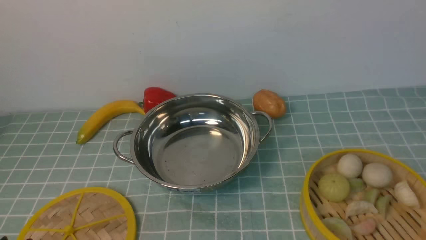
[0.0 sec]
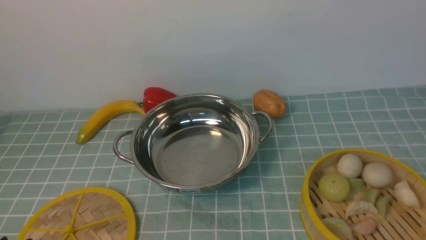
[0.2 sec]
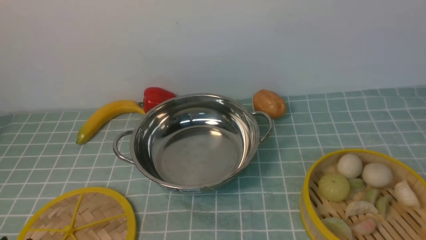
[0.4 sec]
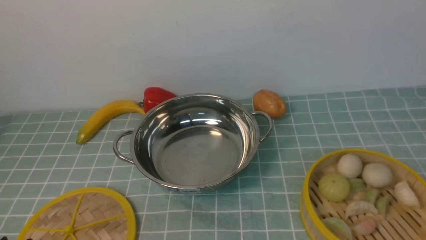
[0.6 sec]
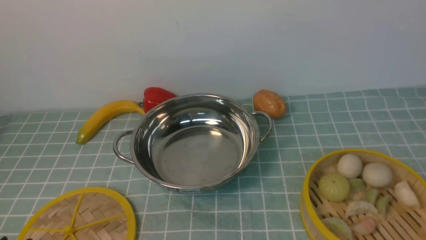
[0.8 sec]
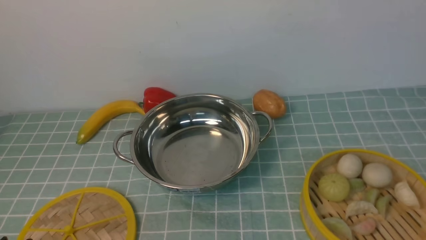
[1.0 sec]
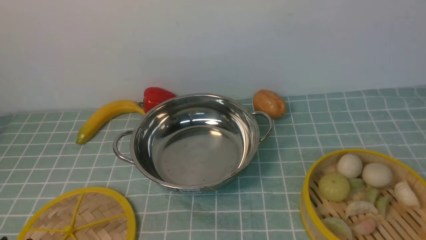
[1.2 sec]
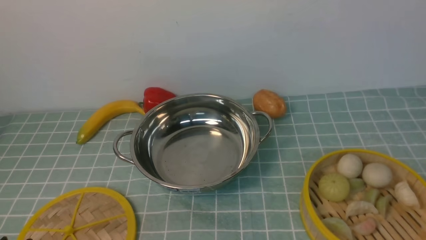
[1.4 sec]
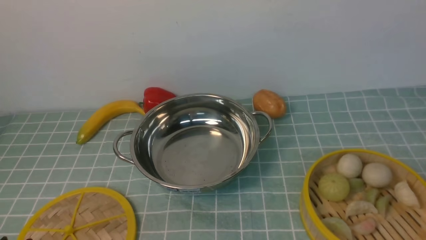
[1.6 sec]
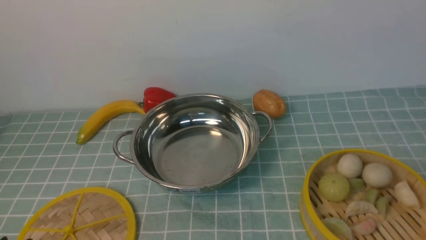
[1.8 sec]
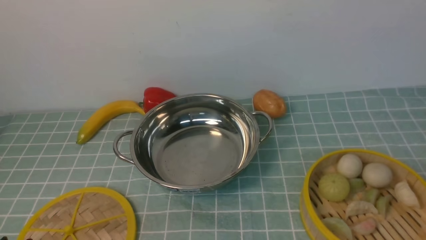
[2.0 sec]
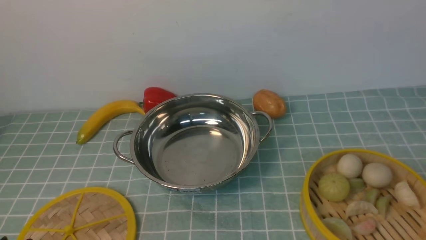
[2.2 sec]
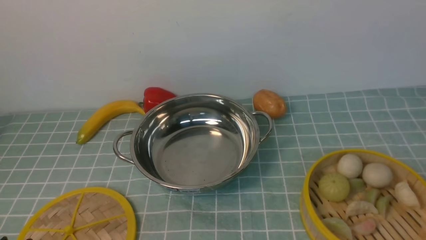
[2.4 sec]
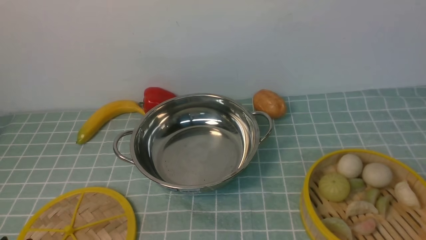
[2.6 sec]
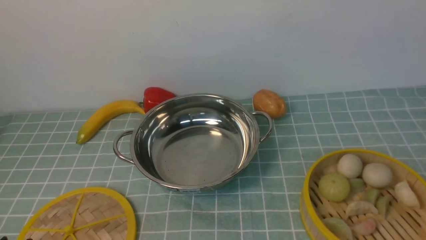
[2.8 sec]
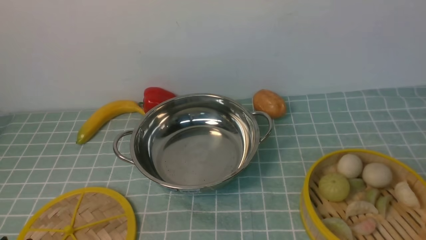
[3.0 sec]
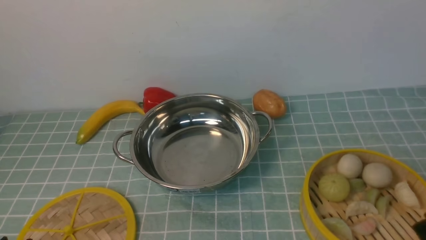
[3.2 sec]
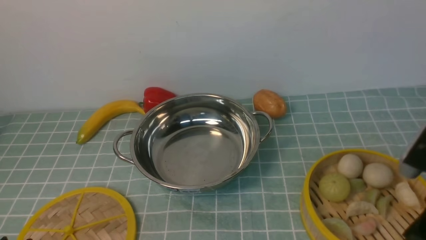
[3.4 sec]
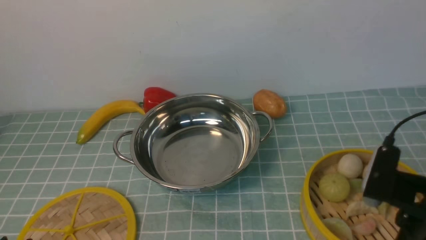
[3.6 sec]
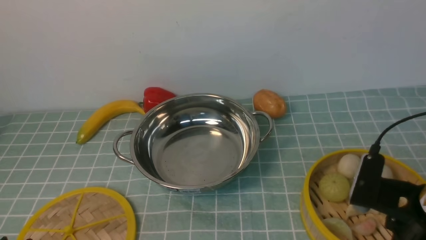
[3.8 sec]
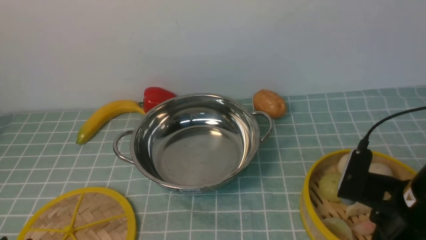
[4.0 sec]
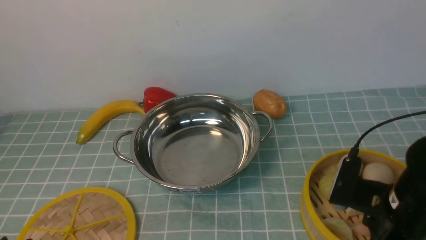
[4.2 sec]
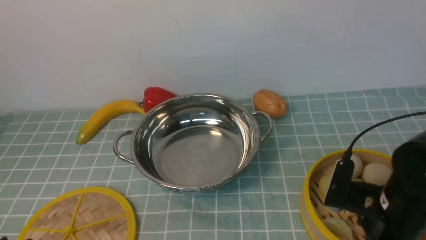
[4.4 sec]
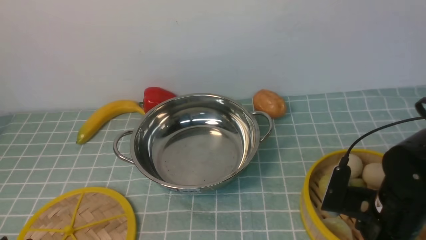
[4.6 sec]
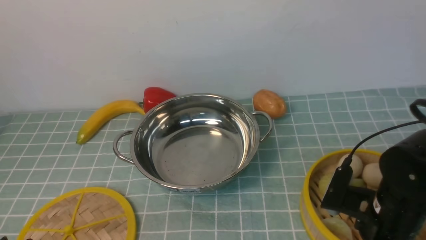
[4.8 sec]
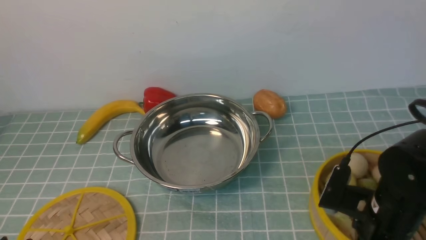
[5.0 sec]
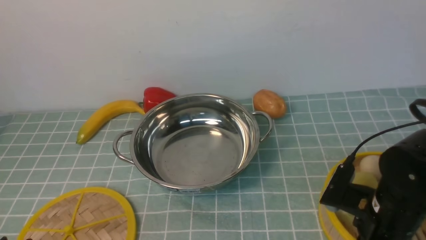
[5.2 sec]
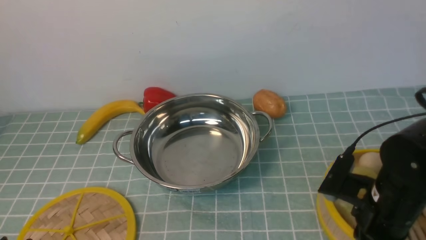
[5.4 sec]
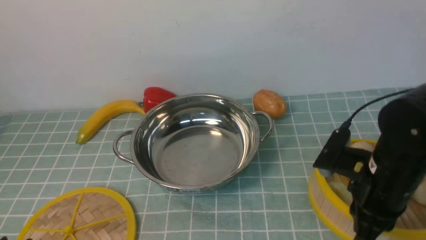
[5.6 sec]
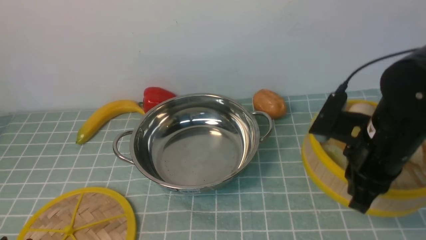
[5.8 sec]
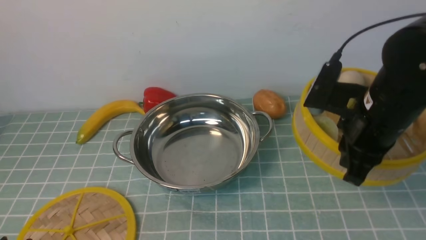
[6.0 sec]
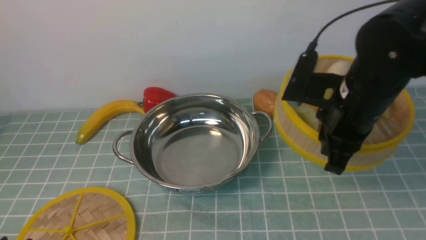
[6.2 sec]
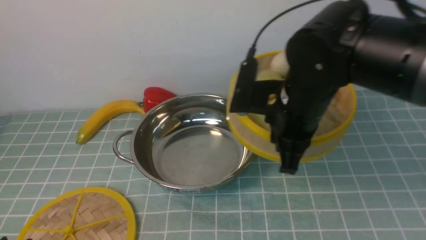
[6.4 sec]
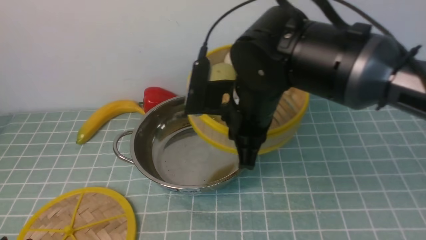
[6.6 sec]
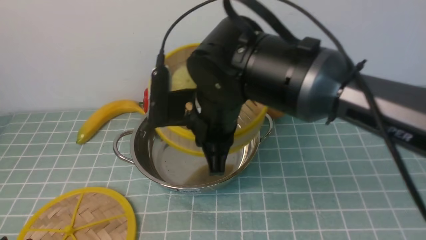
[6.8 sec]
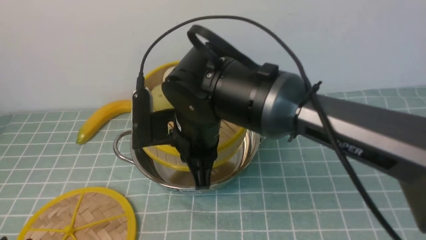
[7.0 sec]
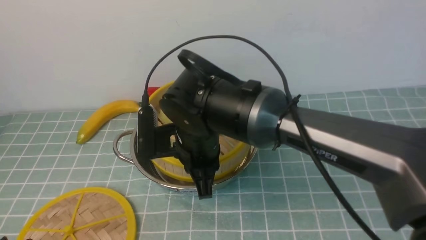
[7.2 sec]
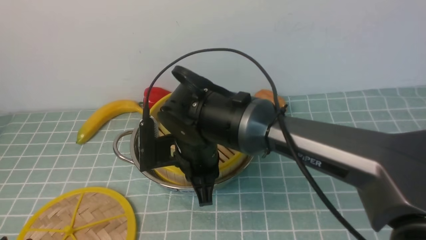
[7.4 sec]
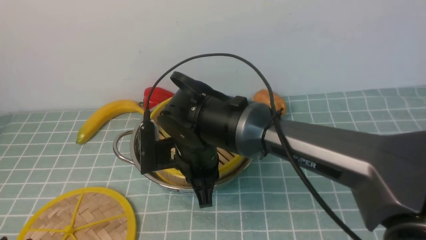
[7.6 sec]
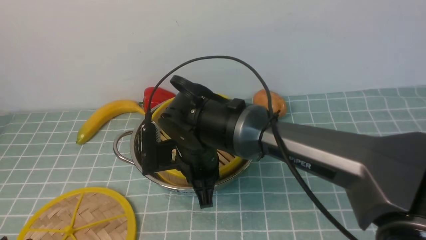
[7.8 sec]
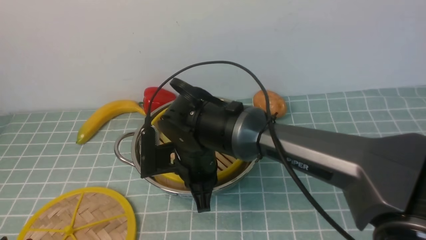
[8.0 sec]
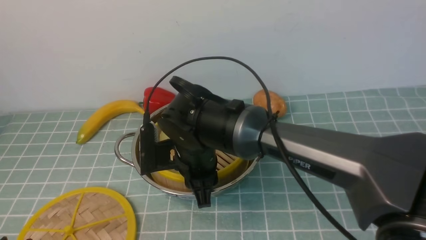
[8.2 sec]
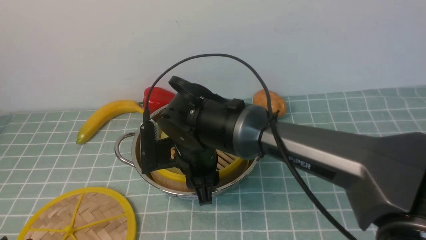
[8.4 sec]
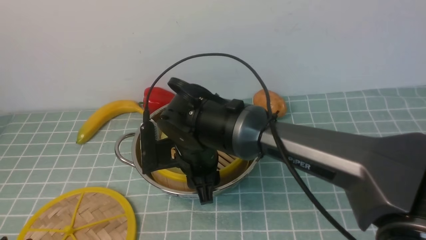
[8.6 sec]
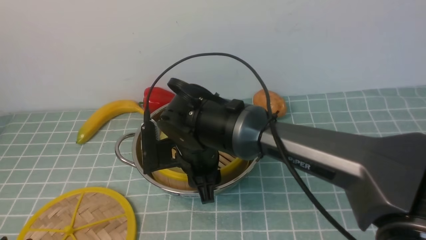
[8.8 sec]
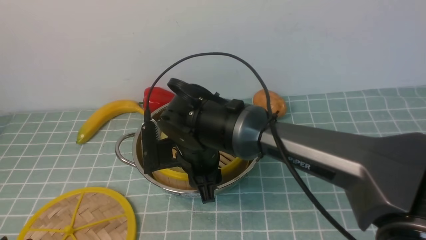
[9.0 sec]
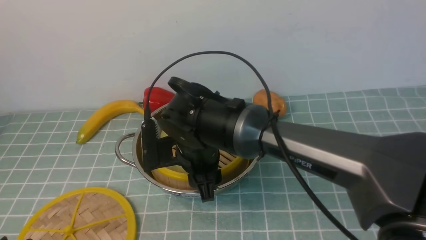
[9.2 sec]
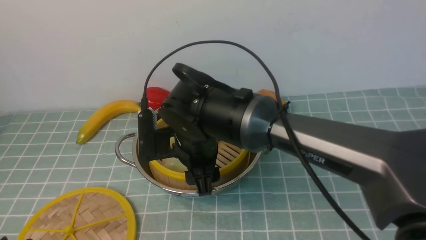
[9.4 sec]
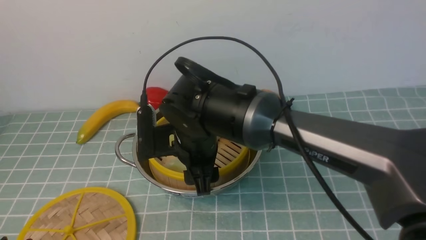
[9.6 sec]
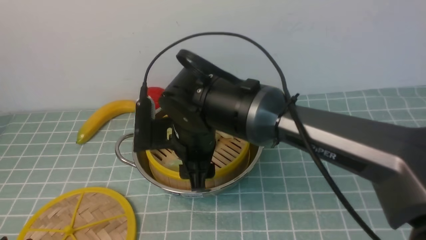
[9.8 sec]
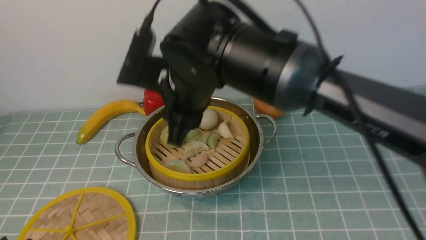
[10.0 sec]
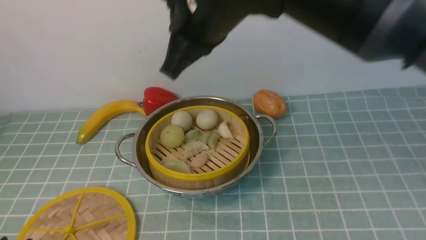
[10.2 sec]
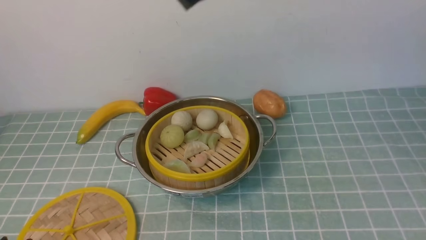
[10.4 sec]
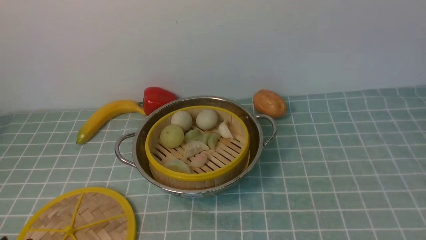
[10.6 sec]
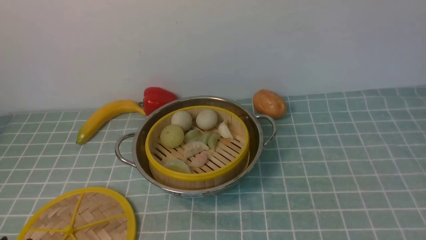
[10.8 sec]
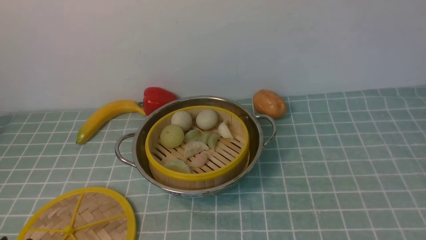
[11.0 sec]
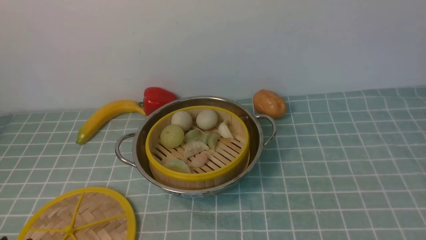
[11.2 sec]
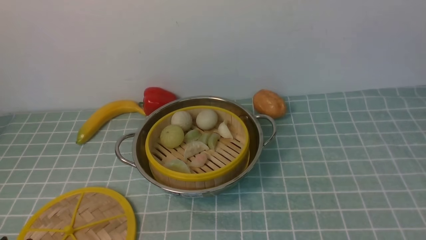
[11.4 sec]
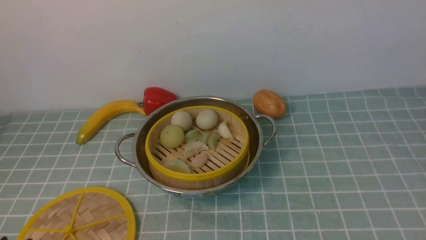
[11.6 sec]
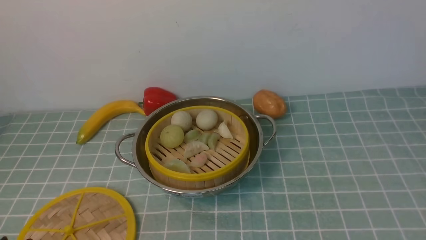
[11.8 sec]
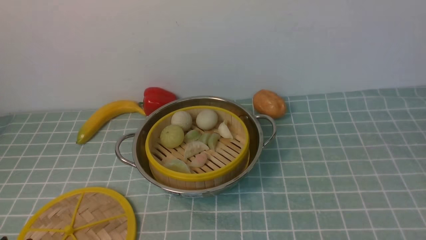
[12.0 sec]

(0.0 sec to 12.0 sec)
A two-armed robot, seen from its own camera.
Task of the whole recording: place the steamer in the pot on the blue tablecloth, and put the lid on the steamer.
Step, 0.0 sec - 5.8 sec: use the right arm to lift the steamer closest to it.
Step, 6.2 sec - 9.8 sec: use the right arm to put the steamer into the iron steamer pot in the middle.
3.0 sec - 4.4 sec: The right gripper is displaced forward, downward and to the left by roughly 15 cm, and opens.
4.4 sec - 6.0 sec: The right gripper is displaced upward and forward by roughly 10 cm, and closes.
6.0 sec - 7.6 sec: The right gripper heads to the left, covering roughly 20 cm.
7.6 sec - 9.0 sec: The right gripper opens.
9.0 sec - 10.4 sec: The right gripper moves upward, approximately 25 cm, and closes.

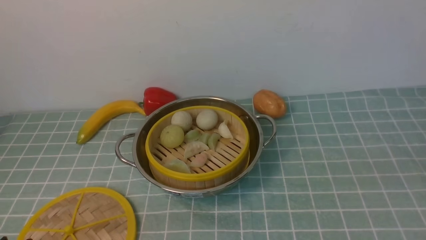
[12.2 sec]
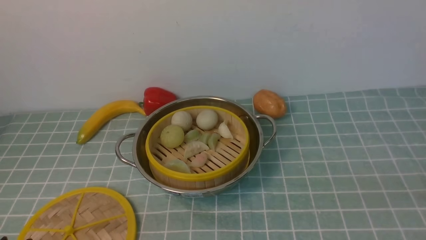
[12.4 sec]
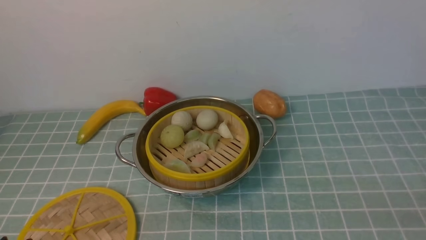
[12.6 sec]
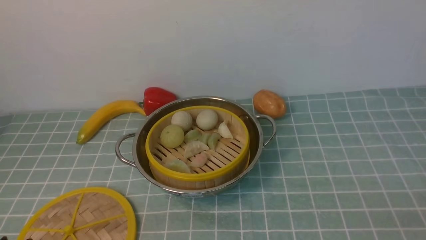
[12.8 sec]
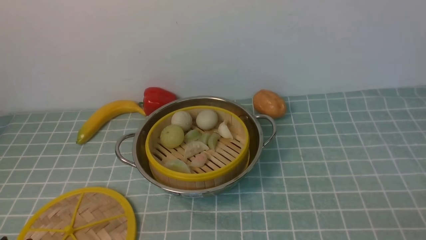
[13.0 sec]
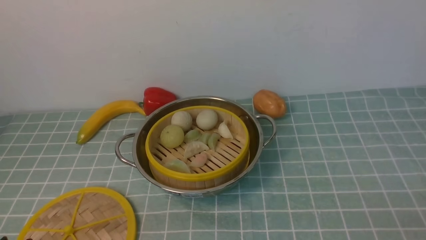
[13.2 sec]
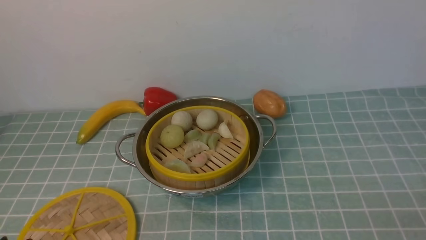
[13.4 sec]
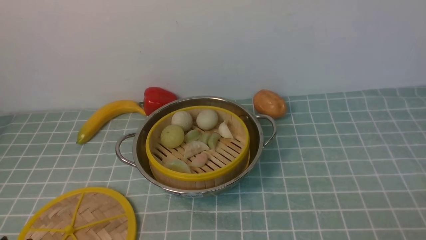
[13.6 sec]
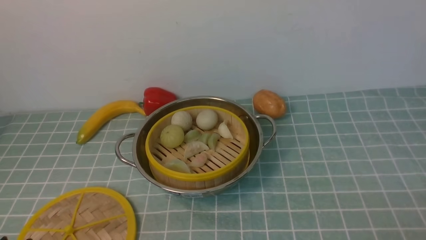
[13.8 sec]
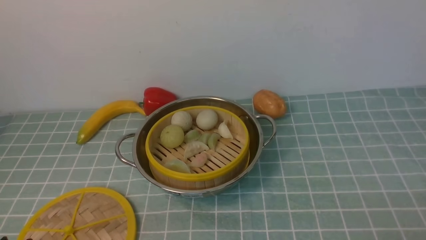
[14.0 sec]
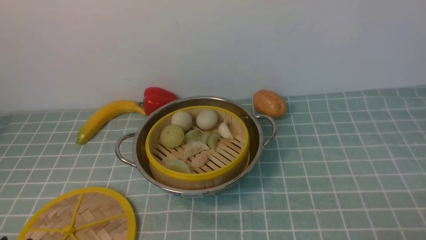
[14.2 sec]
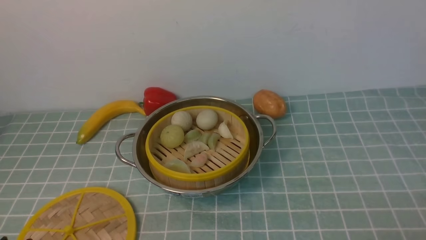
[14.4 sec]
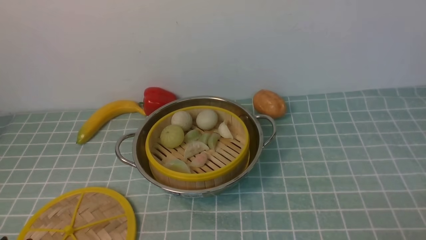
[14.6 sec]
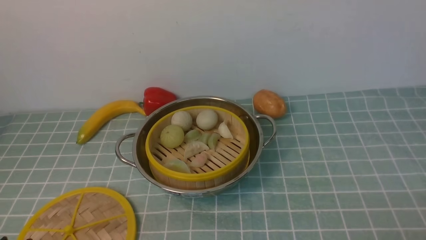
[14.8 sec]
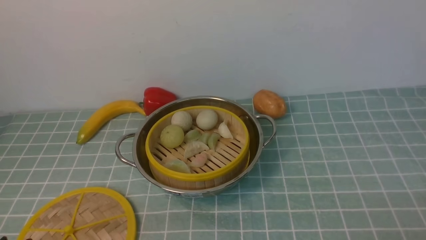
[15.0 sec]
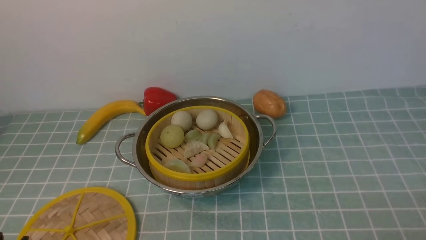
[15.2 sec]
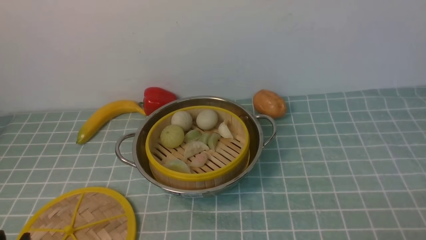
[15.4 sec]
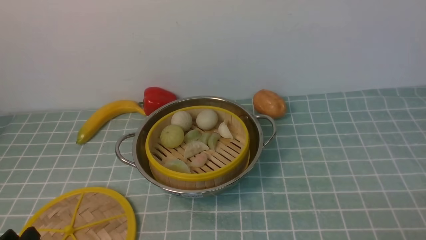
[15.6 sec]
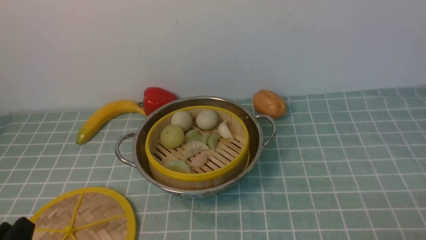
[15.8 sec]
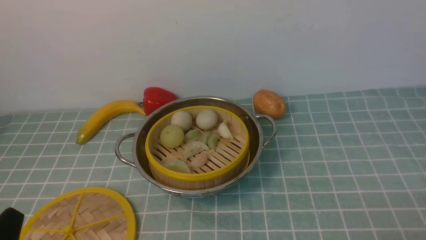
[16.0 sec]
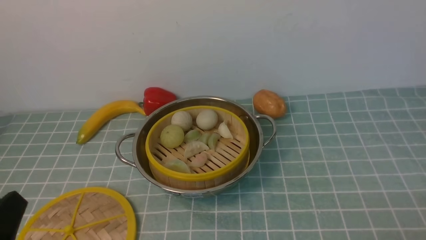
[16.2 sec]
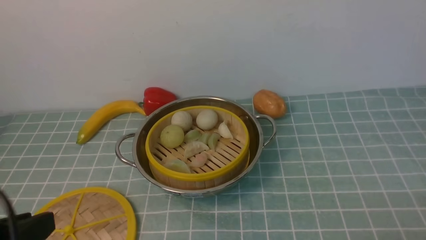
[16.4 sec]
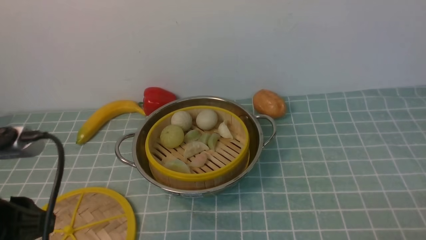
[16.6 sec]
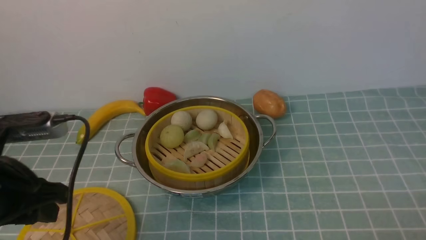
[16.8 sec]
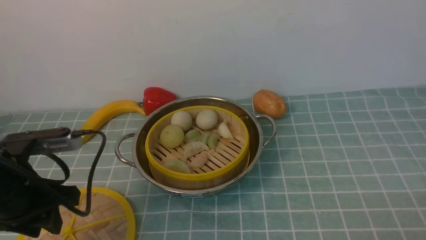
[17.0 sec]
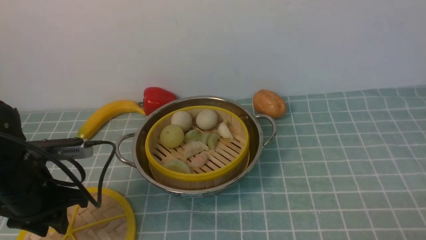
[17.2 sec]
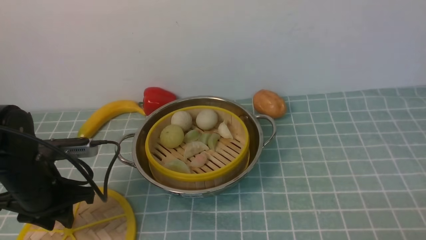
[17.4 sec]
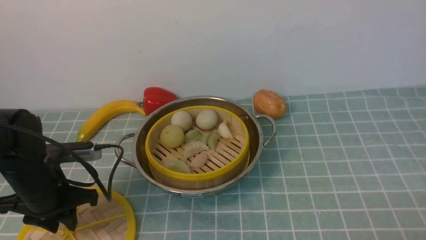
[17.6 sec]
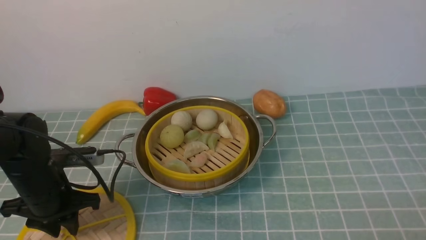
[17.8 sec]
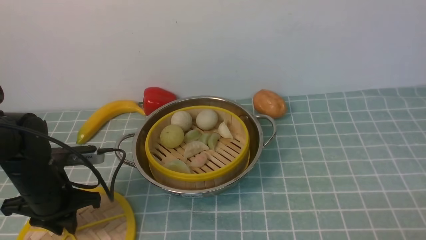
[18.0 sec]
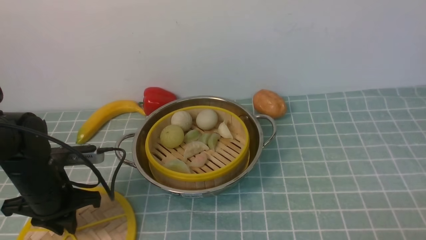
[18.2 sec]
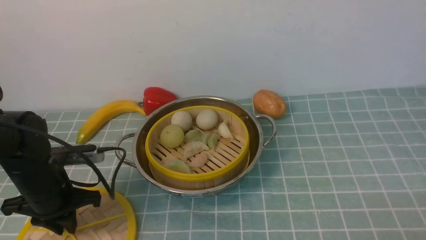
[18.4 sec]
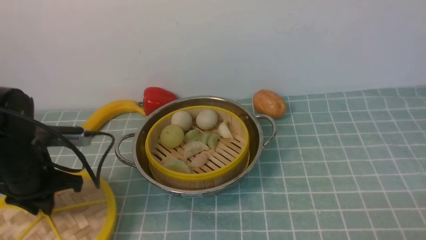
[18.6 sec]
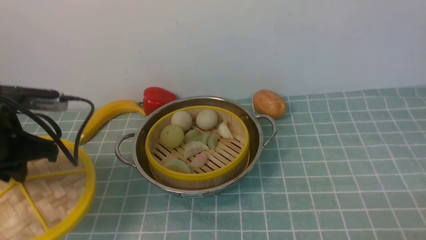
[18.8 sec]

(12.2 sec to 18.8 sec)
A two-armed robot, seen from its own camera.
Task of the whole recording: place the steamer in the pot on the blue tablecloth, and put the lid on the steamer.
13.8 sec - 15.4 sec: Neither gripper changes place.
15.4 sec - 17.2 sec: The left gripper is displaced forward by some 20 cm.
17.2 sec - 18.8 sec: The left gripper moves approximately 5 cm downward and comes back.
